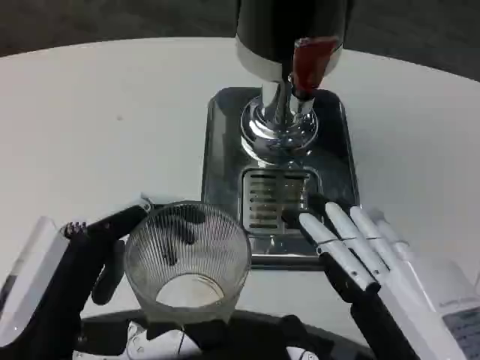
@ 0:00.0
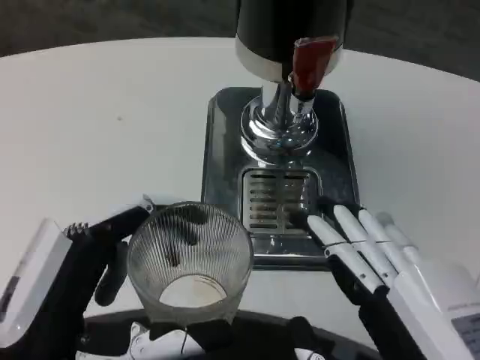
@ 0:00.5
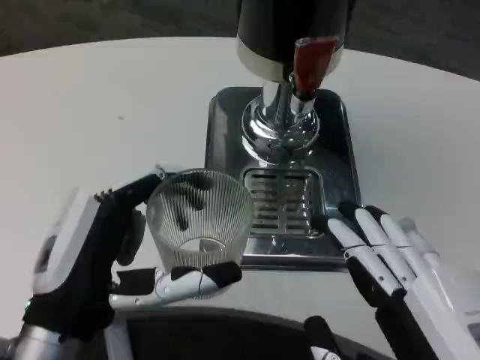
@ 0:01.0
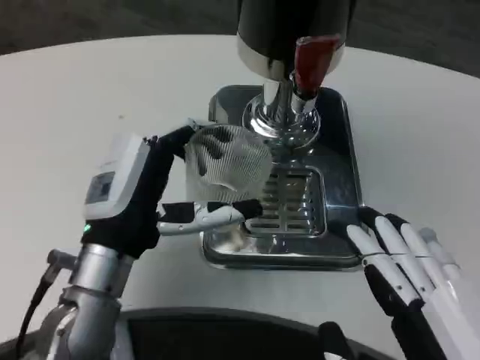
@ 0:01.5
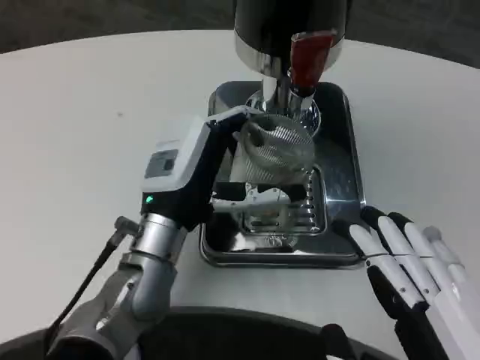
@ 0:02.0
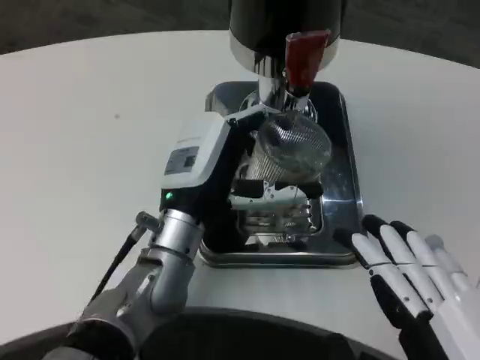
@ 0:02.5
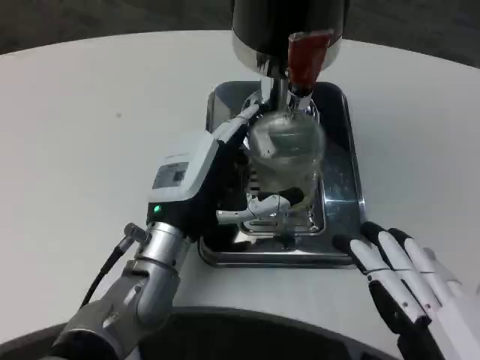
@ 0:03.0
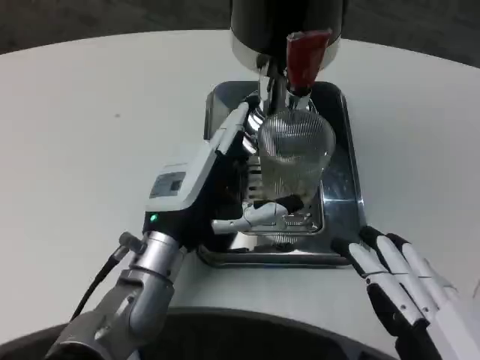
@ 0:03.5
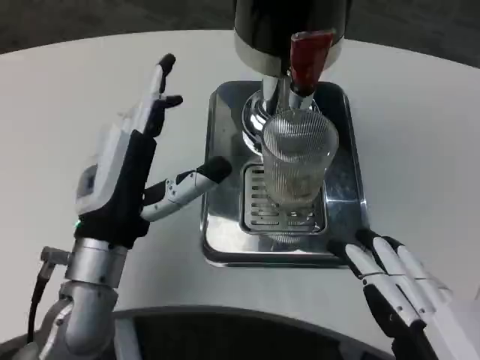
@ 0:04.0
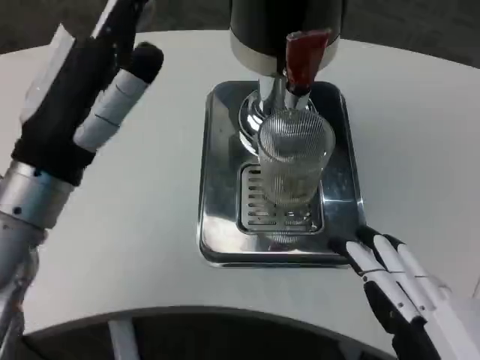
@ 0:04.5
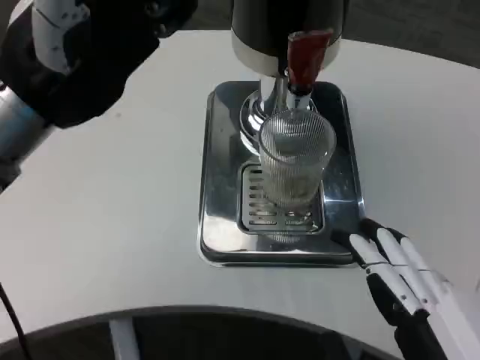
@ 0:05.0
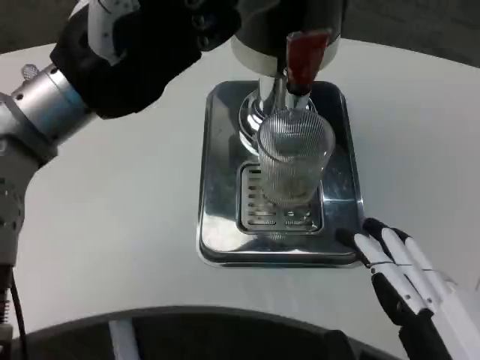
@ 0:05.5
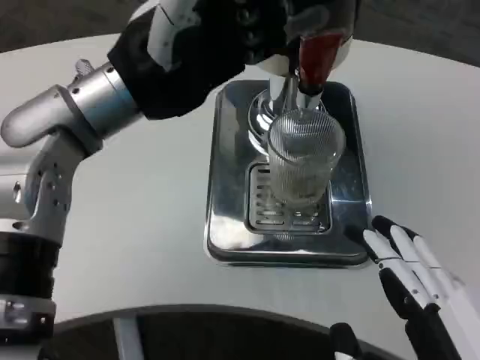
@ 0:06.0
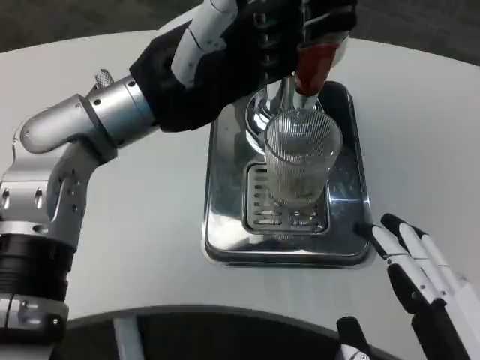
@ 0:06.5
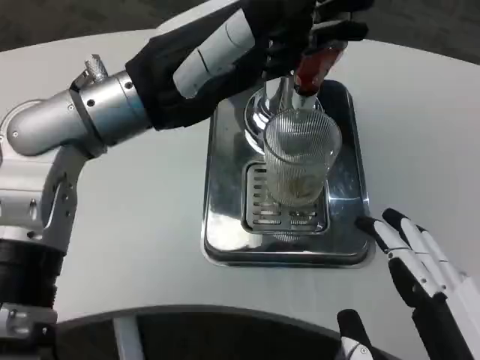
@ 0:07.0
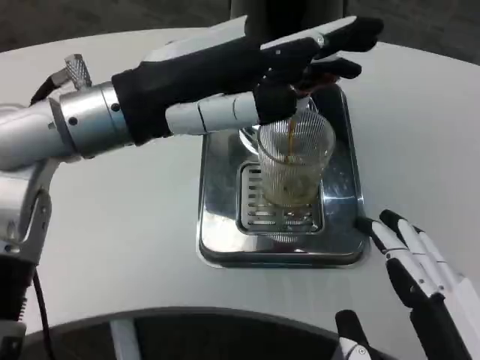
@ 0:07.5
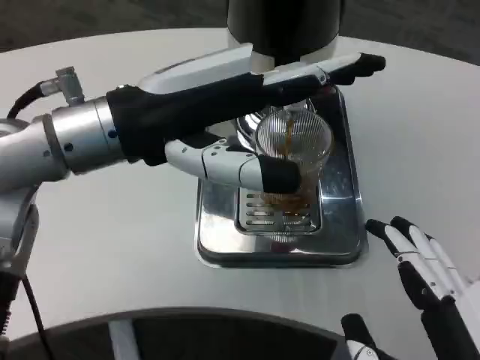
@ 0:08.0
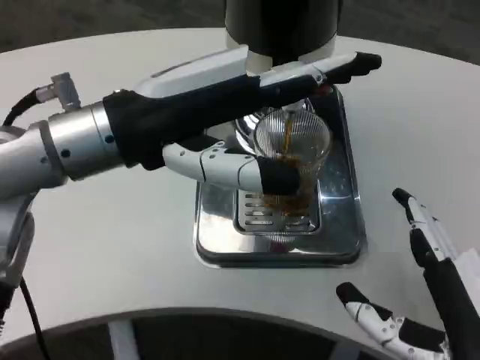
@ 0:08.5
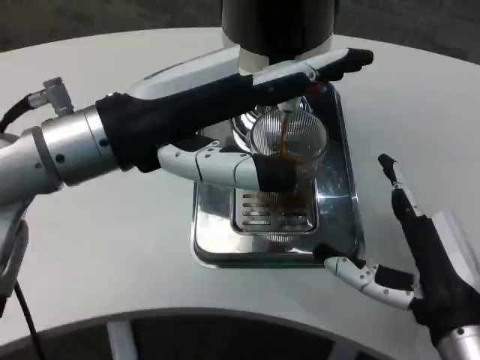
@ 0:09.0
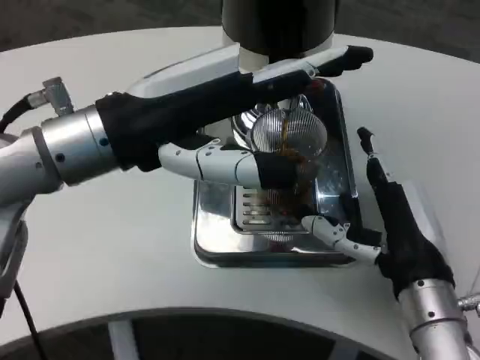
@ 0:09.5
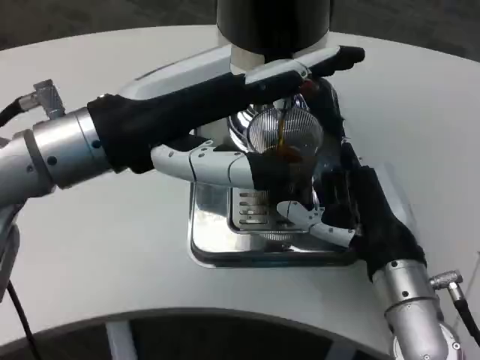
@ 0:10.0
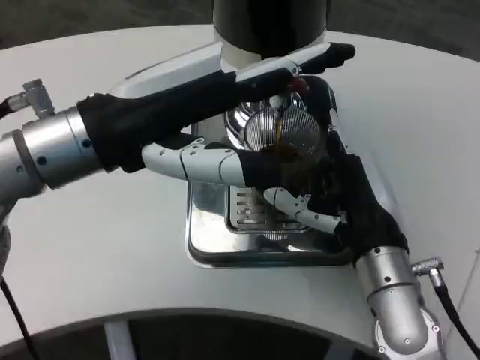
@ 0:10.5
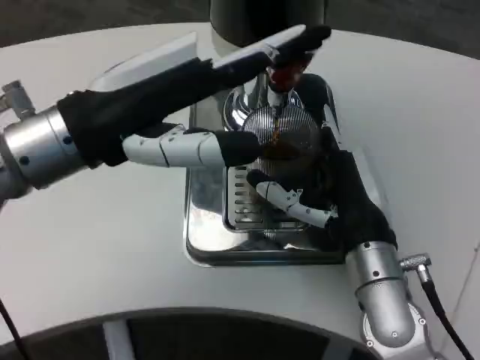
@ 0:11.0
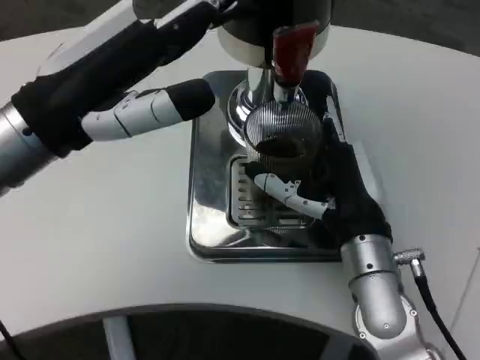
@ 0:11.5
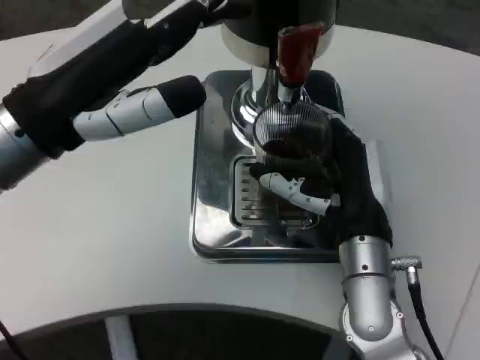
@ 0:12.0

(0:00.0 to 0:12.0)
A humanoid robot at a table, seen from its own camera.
Task of the whole recording: Grasp the cup under the faucet to collect the drink, then remove the cup.
0:00.0 - 0:02.0: The left hand heads forward and to the right, covering approximately 20 cm.
0:02.0 - 0:04.0: The left hand shifts some 5 cm to the left.
0:04.0 - 0:06.0: The left hand is displaced upward by about 15 cm.
0:08.0 - 0:10.0: The right hand heads forward, covering about 20 cm.
0:10.0 - 0:12.0: The right hand shifts by approximately 5 cm.

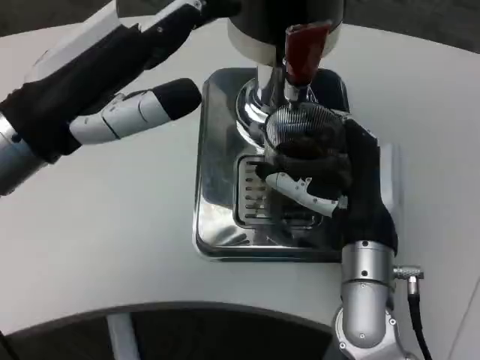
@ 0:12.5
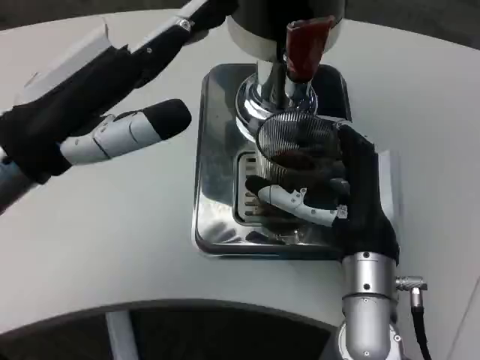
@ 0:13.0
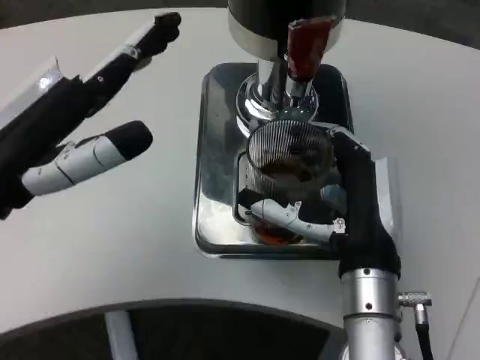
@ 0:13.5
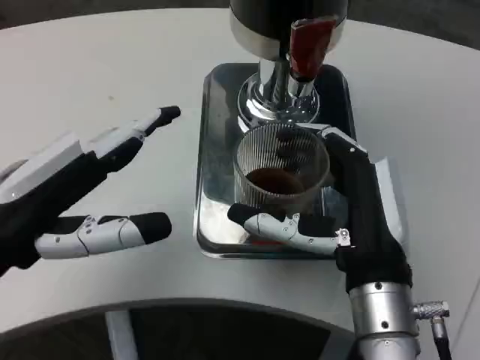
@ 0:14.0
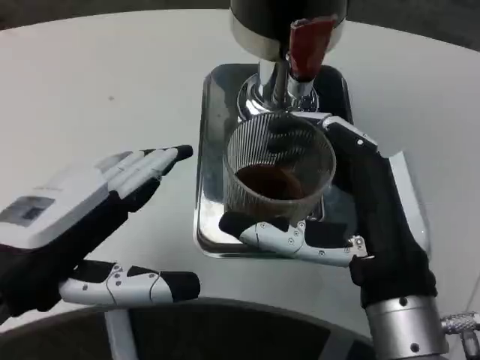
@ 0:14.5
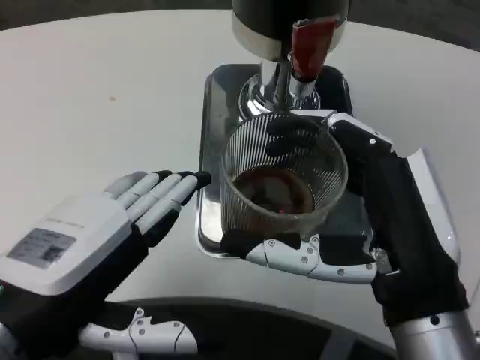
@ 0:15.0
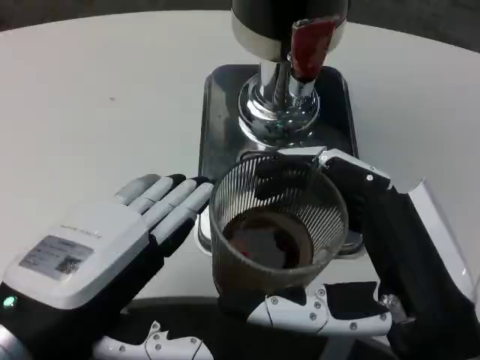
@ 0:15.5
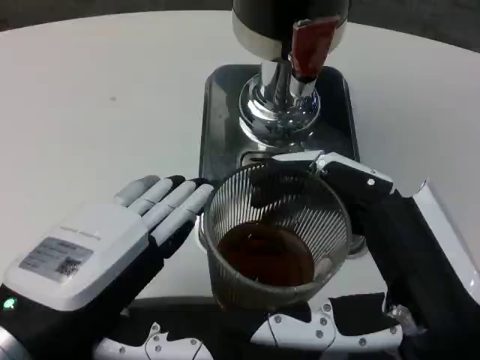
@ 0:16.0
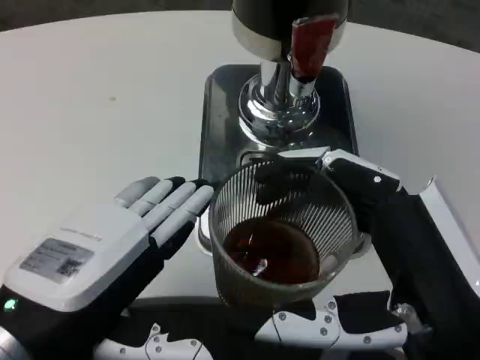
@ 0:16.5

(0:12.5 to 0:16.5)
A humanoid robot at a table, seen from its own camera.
Task of the whole recording: Grasp the cup under the faucet to collect the drink, then remove the cup.
0:12.5 - 0:14.5: The left hand moves backward and downward, some 10 cm. The right hand is displaced backward by about 10 cm.
0:14.5 - 0:16.5: The left hand changes place by about 5 cm. The right hand heads backward, covering about 5 cm.

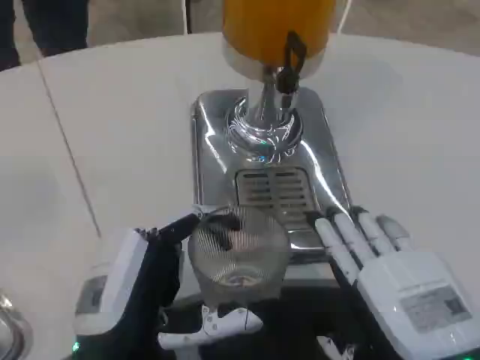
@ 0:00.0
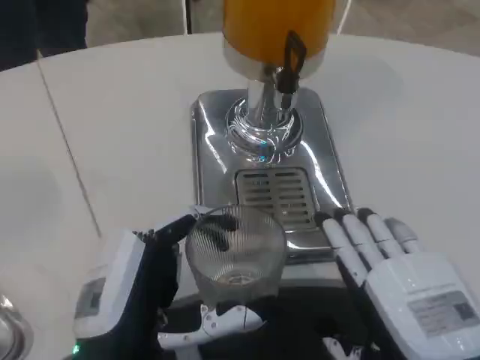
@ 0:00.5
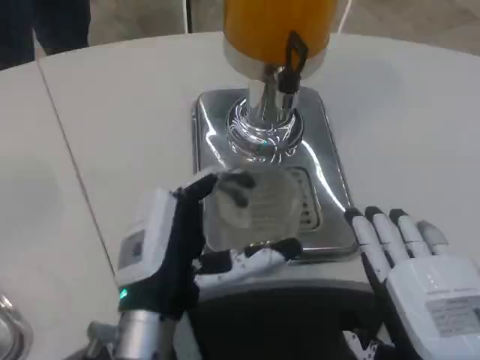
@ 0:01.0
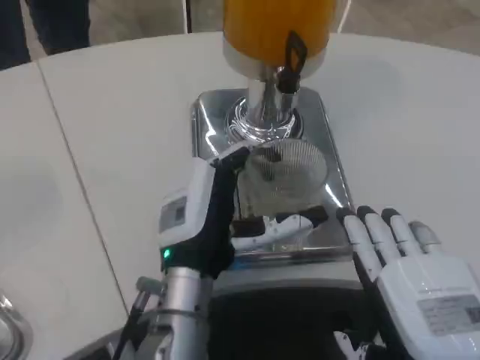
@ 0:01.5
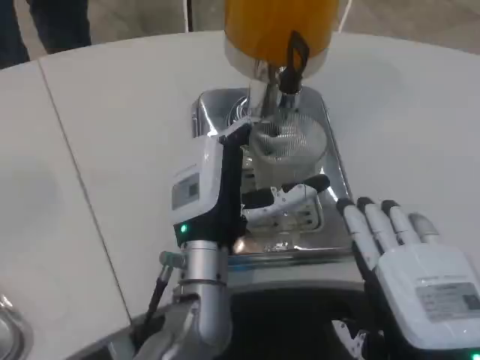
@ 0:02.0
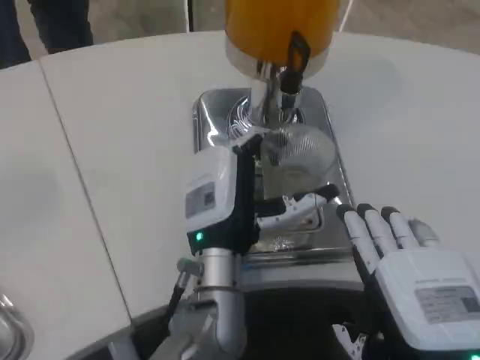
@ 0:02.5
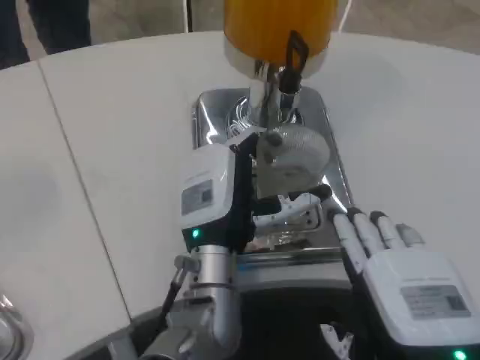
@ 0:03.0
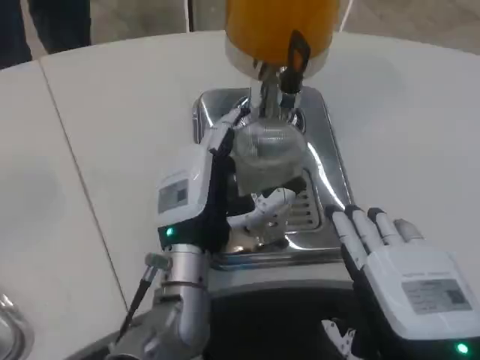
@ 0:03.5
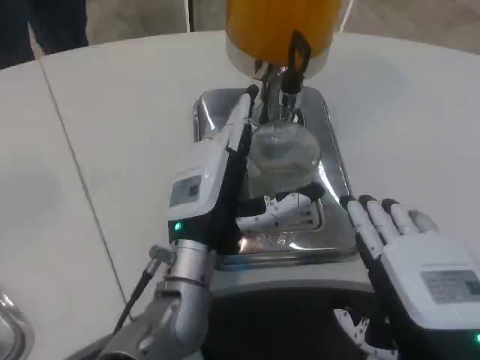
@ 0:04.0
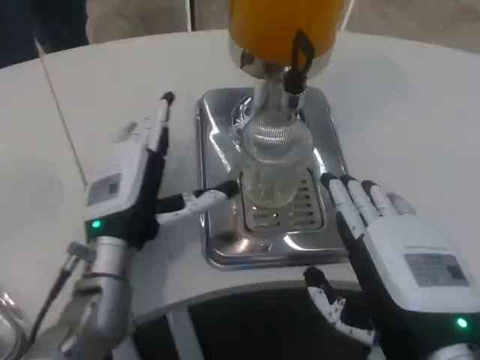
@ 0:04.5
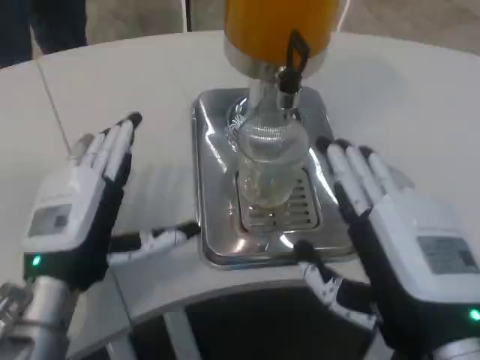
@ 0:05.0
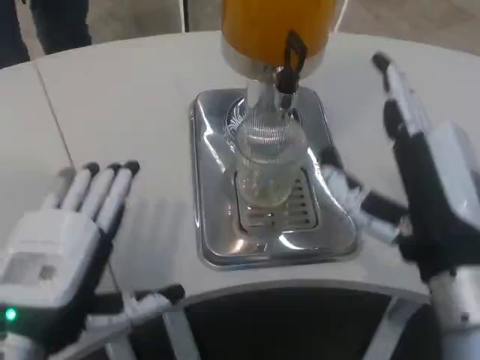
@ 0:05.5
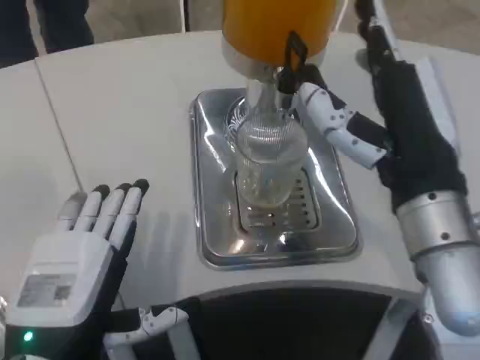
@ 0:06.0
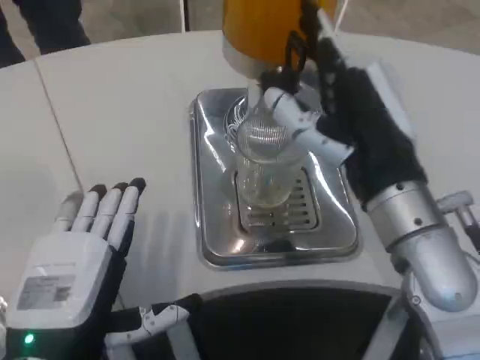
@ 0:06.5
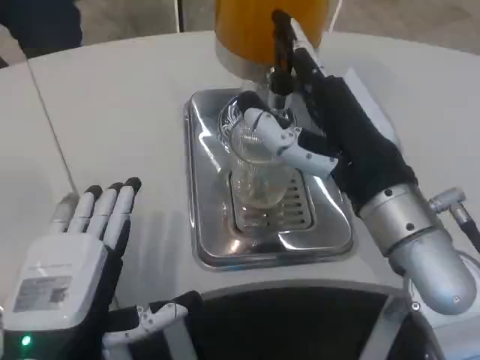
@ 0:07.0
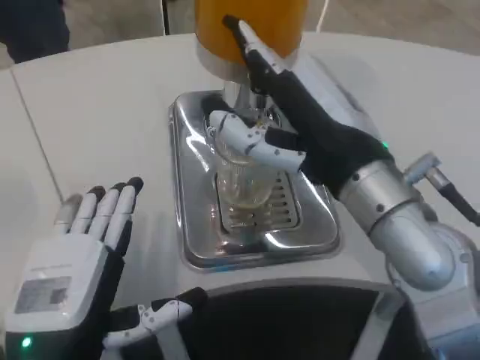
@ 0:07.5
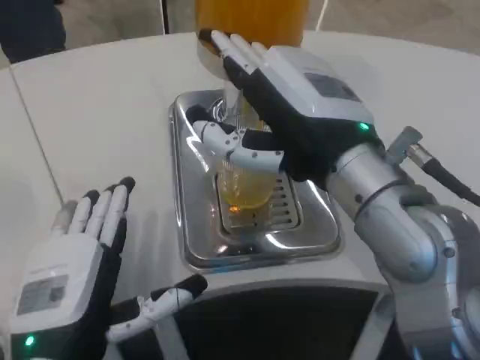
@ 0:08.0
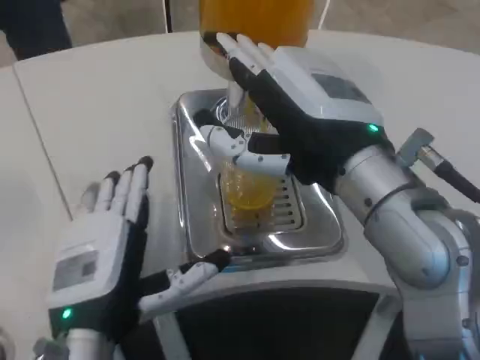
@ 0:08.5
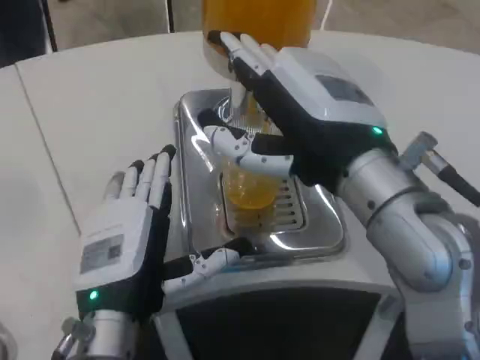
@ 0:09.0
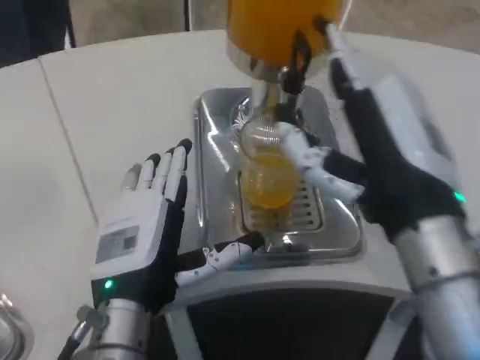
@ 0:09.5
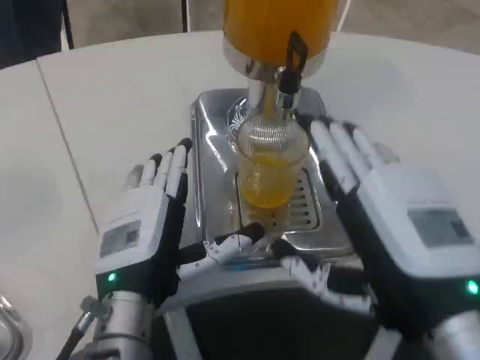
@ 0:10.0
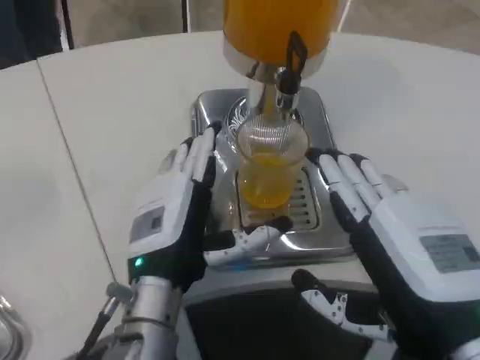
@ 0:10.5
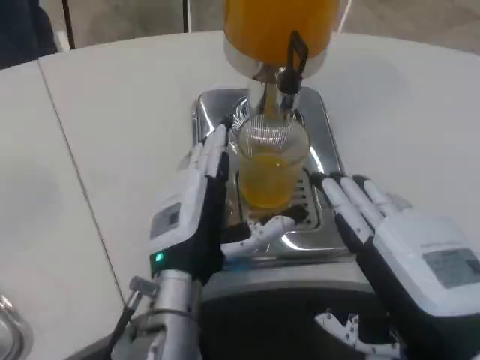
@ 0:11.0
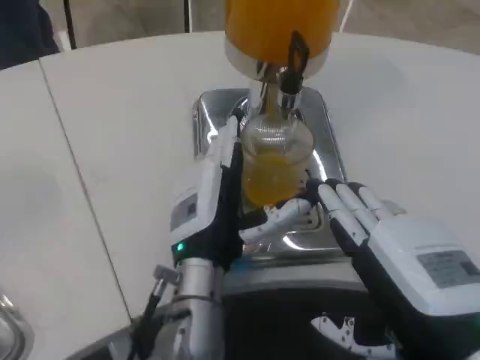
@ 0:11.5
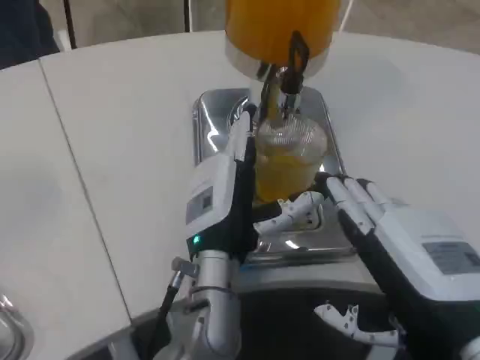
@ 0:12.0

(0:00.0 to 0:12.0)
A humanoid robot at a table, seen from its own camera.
Task of the whole recording: Grasp the cup under the faucet to collect the drink, then remove the cup.
0:00.0 - 0:02.0: The left hand goes some 15 cm forward and to the right.
0:02.0 - 0:04.0: The hands move only a little.
0:04.0 - 0:06.0: The right hand heads forward and upward, covering roughly 10 cm. The left hand goes roughly 20 cm backward and to the left.
0:06.0 - 0:08.0: The right hand changes place by some 5 cm.
0:08.0 - 0:10.0: The right hand moves backward and downward, approximately 10 cm. Meanwhile the left hand is displaced forward and to the right by some 10 cm.
0:10.0 - 0:12.0: The left hand shifts some 10 cm to the right and forward.
